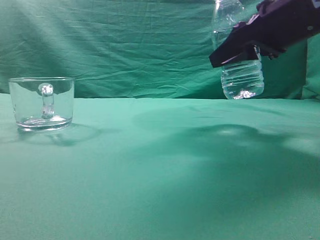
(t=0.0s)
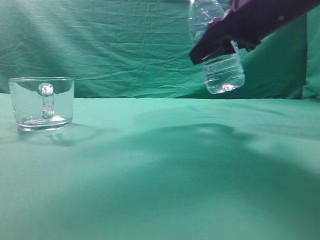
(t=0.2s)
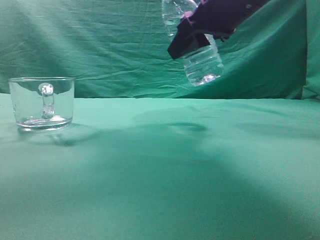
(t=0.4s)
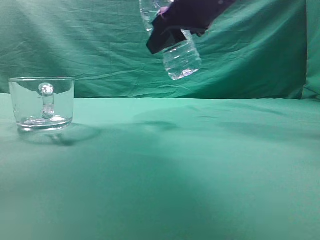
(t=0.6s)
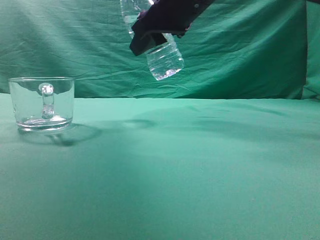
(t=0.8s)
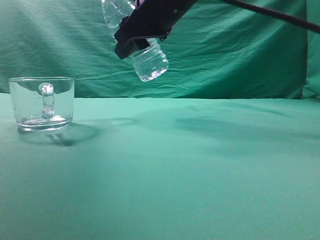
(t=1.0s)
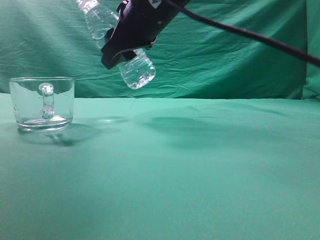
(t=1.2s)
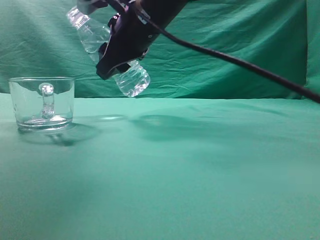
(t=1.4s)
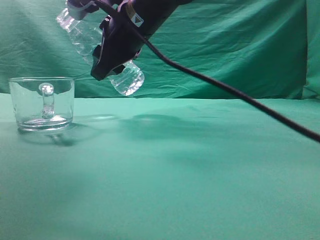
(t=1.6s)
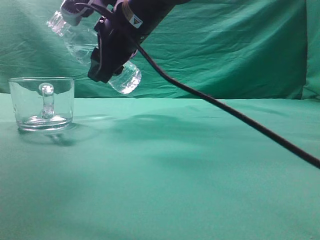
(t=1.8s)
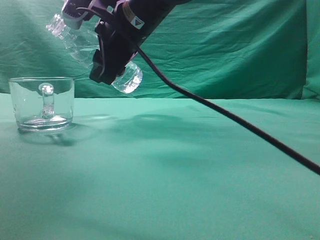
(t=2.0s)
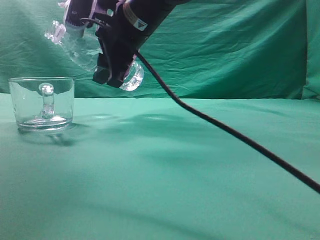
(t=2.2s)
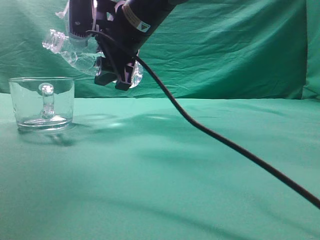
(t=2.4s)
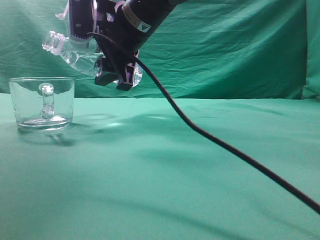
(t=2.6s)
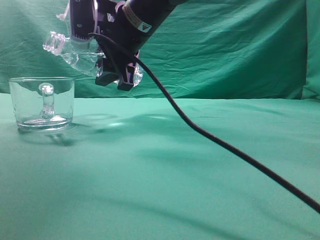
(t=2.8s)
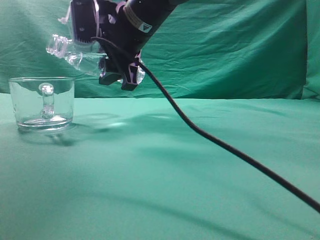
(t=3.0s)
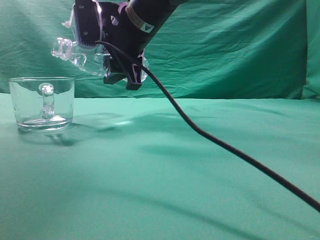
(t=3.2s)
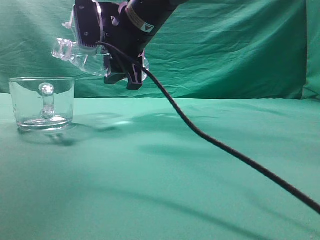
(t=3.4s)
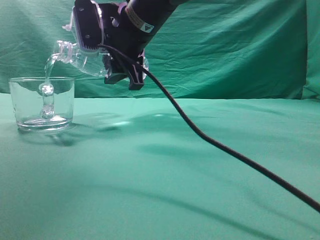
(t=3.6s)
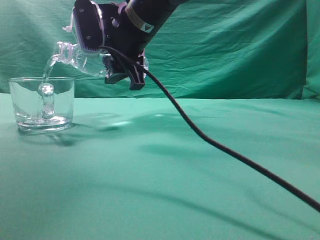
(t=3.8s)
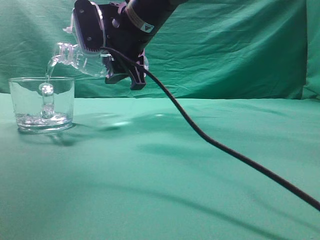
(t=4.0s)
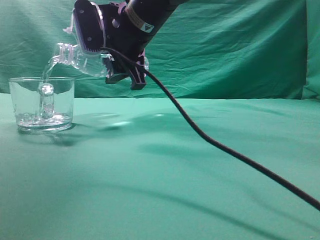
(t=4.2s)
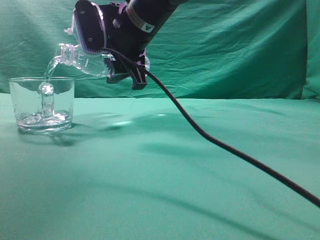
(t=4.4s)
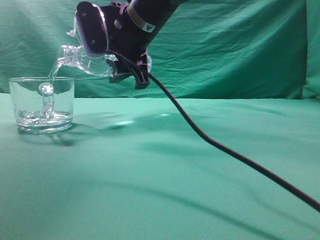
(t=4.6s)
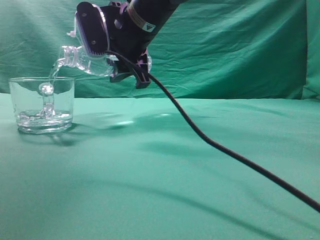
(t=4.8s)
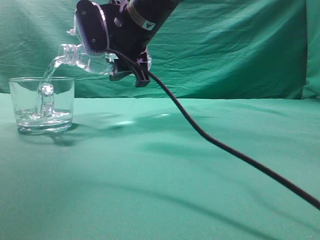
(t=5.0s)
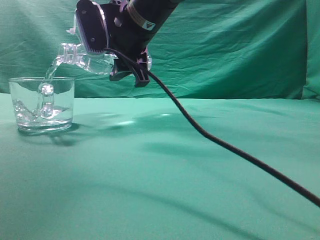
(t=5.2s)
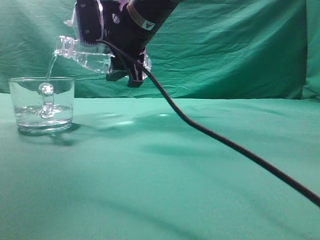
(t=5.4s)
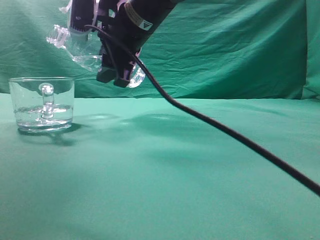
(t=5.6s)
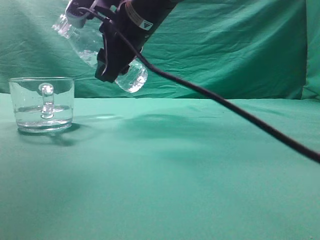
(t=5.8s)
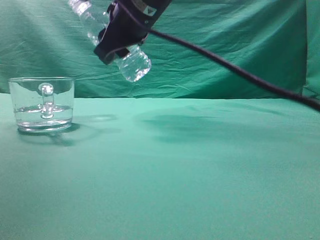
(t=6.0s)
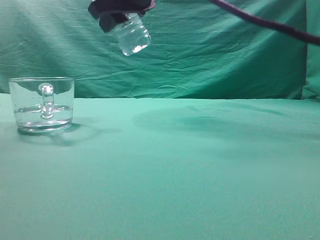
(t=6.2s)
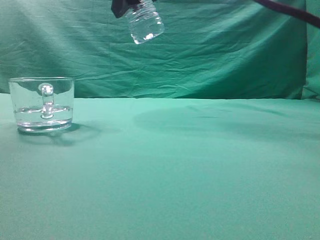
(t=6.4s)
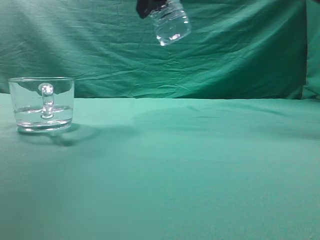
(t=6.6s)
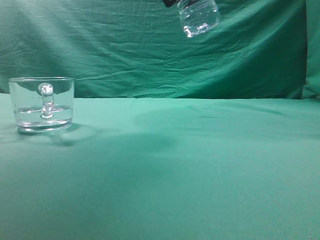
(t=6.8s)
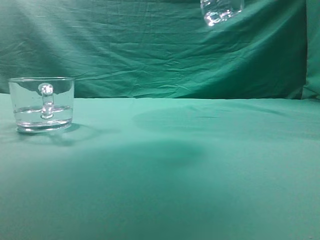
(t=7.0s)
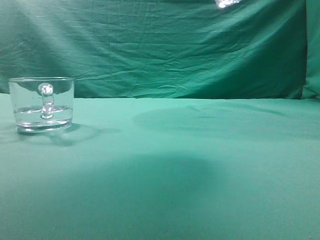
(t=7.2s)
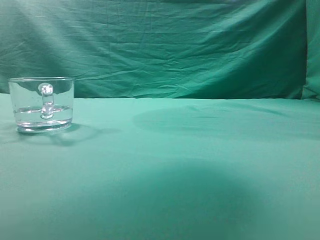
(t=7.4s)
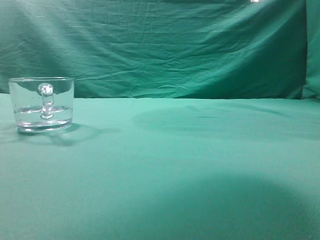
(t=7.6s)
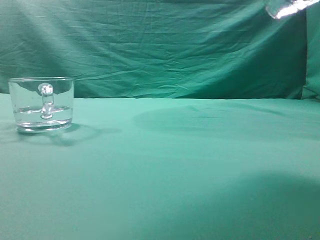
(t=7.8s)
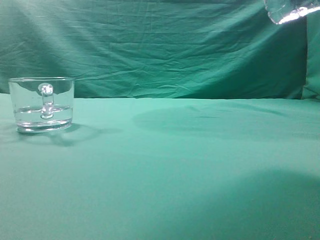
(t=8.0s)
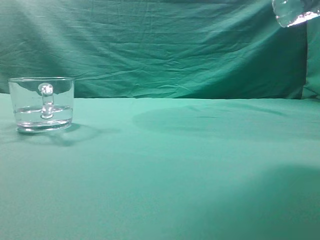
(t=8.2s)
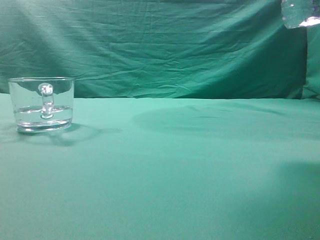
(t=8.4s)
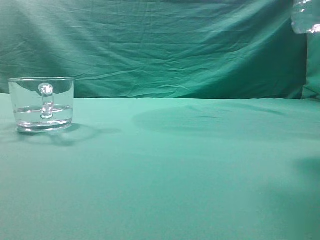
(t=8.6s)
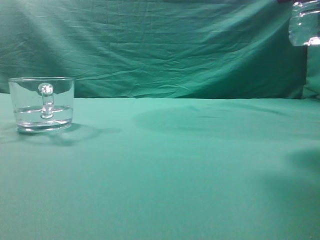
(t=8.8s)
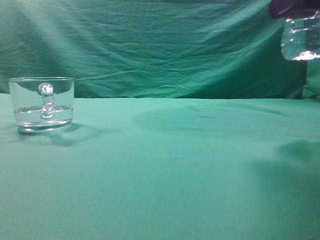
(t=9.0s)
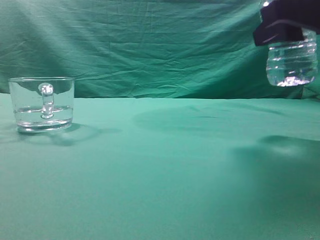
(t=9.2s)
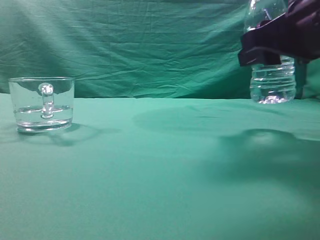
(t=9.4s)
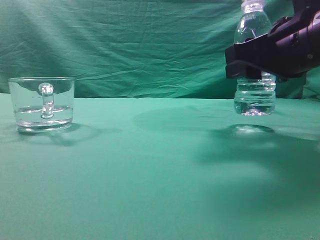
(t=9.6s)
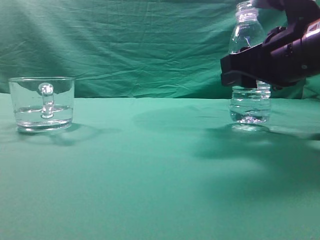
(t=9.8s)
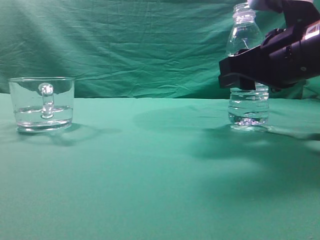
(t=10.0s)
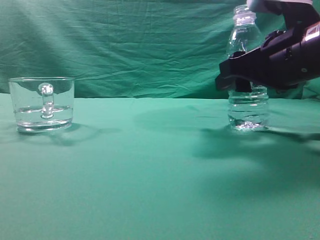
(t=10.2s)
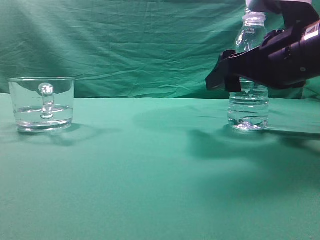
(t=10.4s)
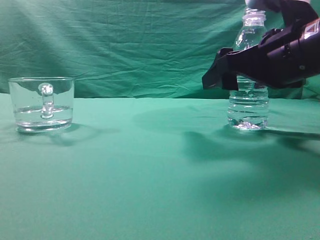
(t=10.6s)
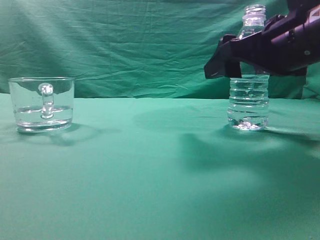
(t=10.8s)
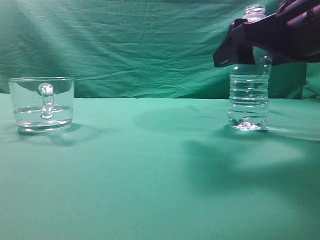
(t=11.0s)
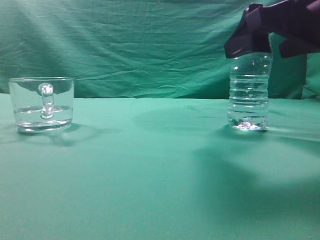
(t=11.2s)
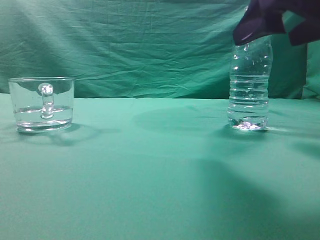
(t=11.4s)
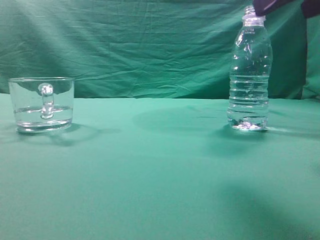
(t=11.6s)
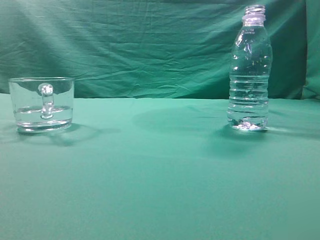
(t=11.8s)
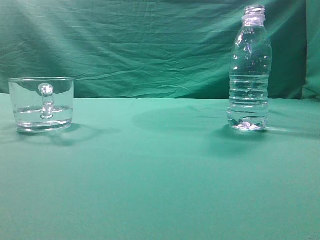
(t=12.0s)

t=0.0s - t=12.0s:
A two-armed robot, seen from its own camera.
Task of the whole recording: pick up the water bottle and pour the water in it into the glass.
Step, t=0.2s - t=5.8s: Pour water into the teacup.
t=0.0s - t=1.6s: The right gripper shifts approximately 20 cm to the left.
t=3.0s - t=4.4s: There are only small adjustments of the grippers.
t=6.0s - t=7.6s: The right gripper is displaced to the right, backward and upward by about 25 cm.
t=7.6s - t=9.0s: The right gripper is displaced downward by some 10 cm.
t=9.0s - t=10.4s: The right gripper travels downward and forward by some 10 cm, and opens its fingers.
t=10.4s - t=12.0s: The right gripper is displaced upward, backward and to the right by roughly 25 cm, and closes.
